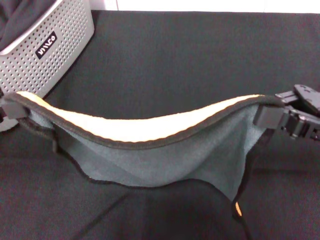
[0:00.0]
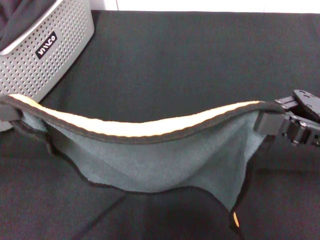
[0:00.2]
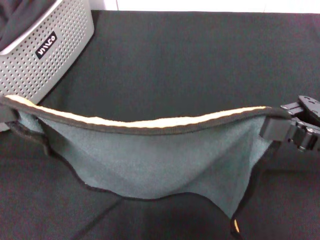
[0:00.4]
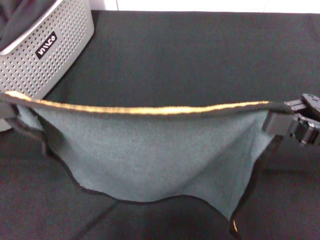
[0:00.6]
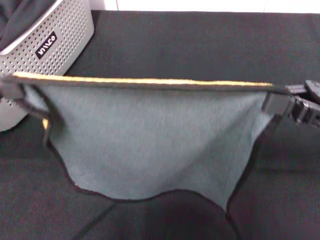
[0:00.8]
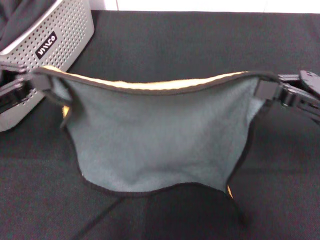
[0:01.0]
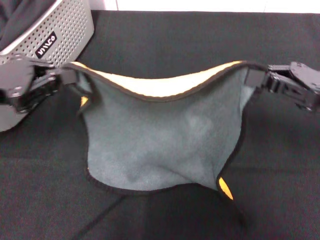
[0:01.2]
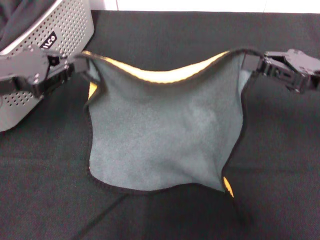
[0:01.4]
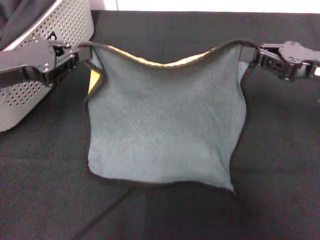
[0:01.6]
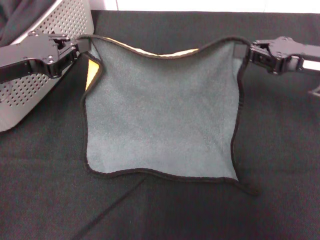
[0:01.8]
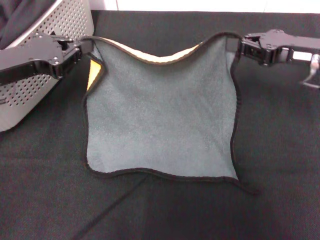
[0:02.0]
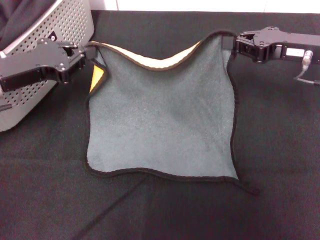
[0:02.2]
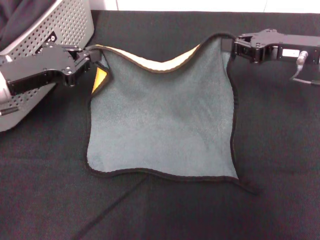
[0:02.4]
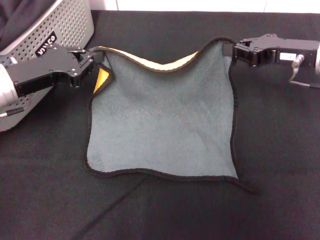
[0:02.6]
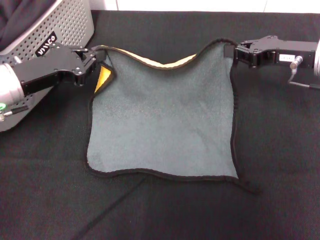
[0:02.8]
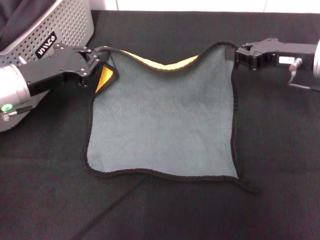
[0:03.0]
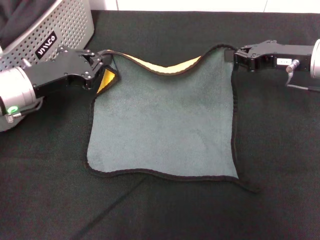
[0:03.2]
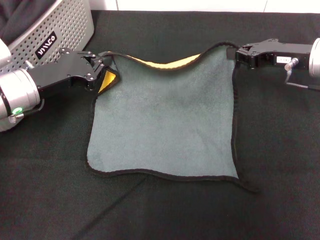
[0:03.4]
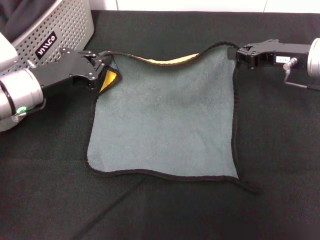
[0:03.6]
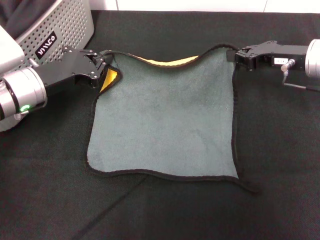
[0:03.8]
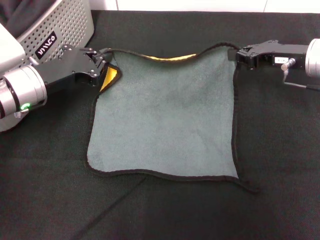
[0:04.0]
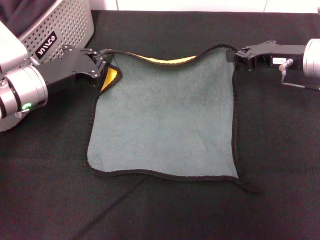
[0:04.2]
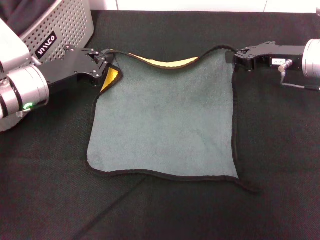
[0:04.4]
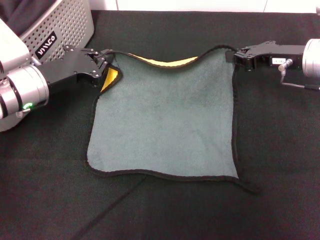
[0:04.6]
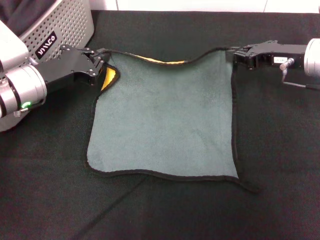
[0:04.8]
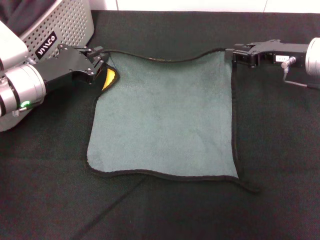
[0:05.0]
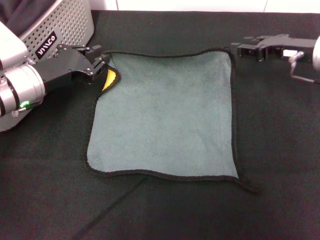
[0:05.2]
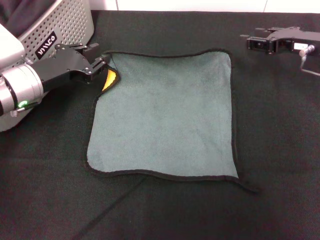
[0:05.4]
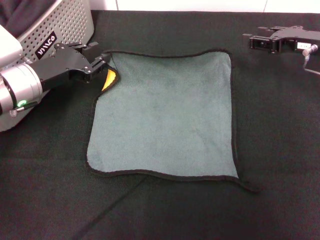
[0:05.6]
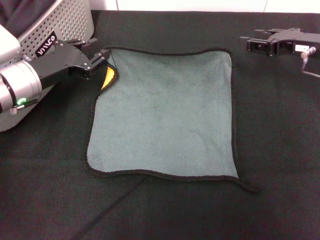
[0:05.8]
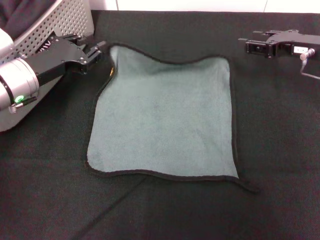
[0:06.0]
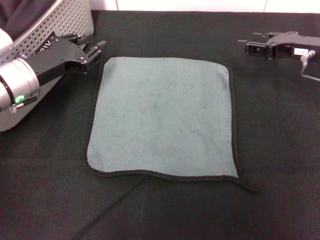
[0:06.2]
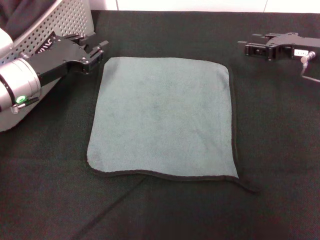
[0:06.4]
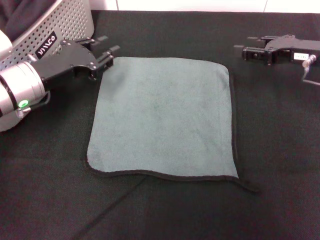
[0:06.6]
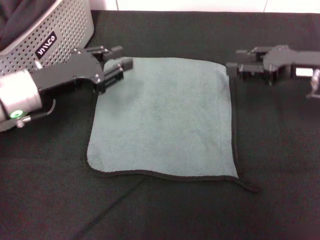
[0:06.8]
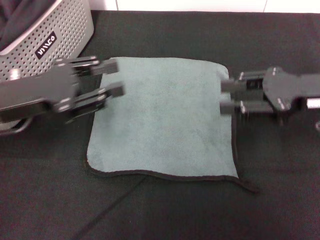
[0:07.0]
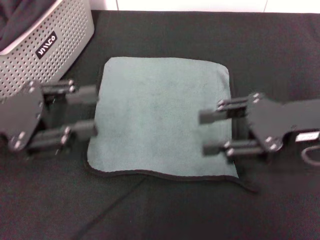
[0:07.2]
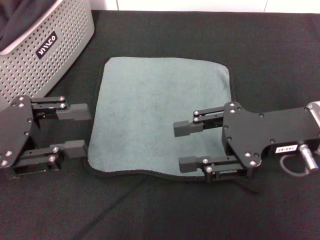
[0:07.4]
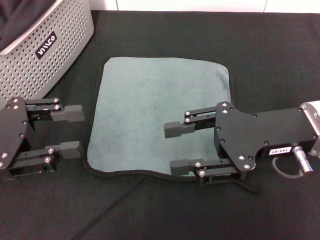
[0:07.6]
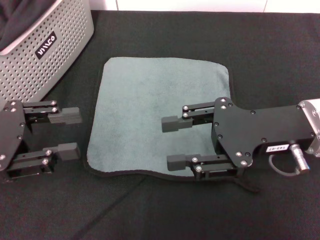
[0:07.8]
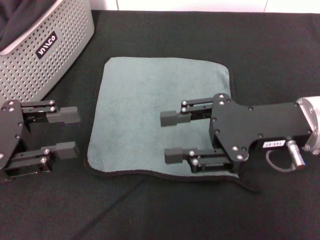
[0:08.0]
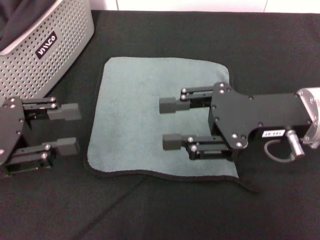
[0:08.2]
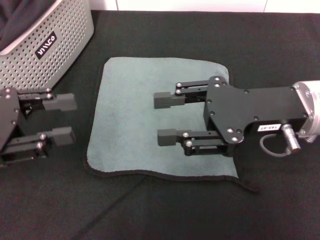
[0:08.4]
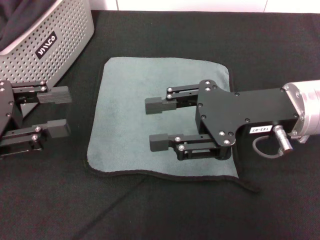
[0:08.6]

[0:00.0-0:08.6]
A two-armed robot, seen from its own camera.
Task of the whole recording: pick up the towel from the storage box and lay it flat on the black tablecloth.
Step, 0:00.0 to 0:05.0: Spread the towel flat with the right gripper.
0:00.0 to 0:01.4: Both grippers move forward, some 5 cm.
0:01.4 to 0:02.8: The right gripper shifts approximately 5 cm forward. The left gripper goes roughly 5 cm downward.
0:02.8 to 0:04.4: The grippers make only small movements.
0:04.4 to 0:05.8: The right gripper opens its fingers. Meanwhile the left gripper opens.
0:05.8 to 0:07.2: The left gripper is displaced backward and upward by about 10 cm. The right gripper travels backward by roughly 10 cm.
0:07.2 to 0:08.6: The right gripper heads to the left, covering roughly 5 cm.
